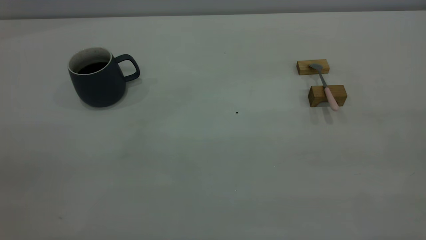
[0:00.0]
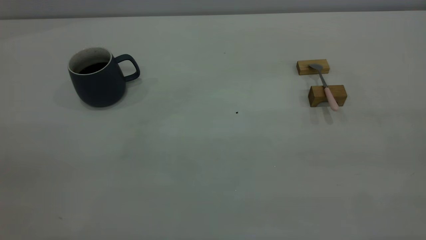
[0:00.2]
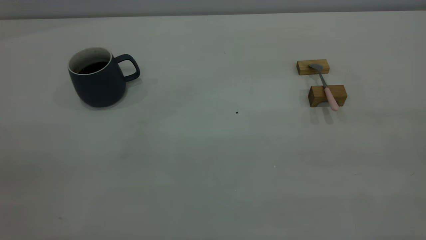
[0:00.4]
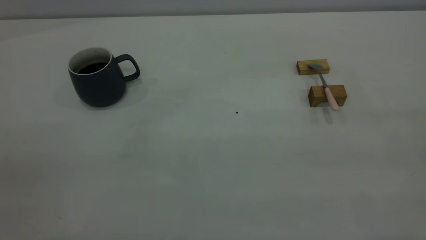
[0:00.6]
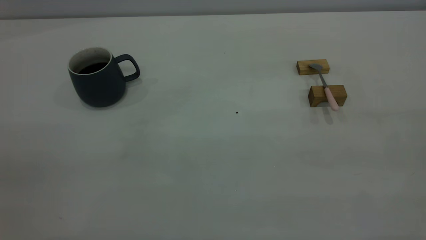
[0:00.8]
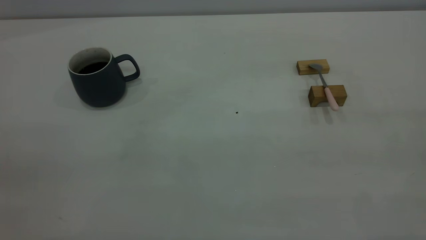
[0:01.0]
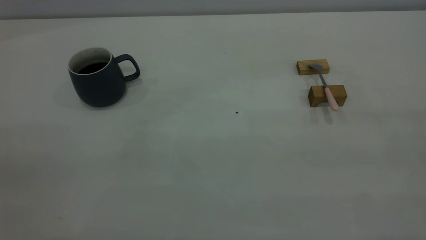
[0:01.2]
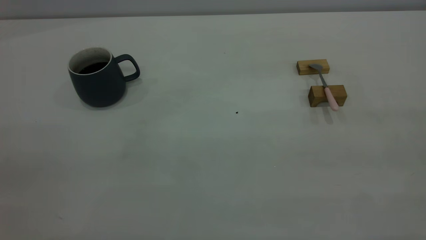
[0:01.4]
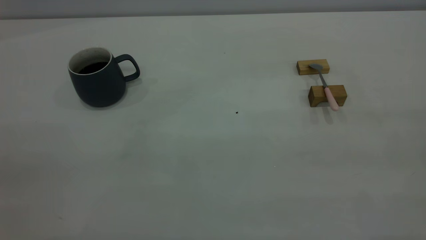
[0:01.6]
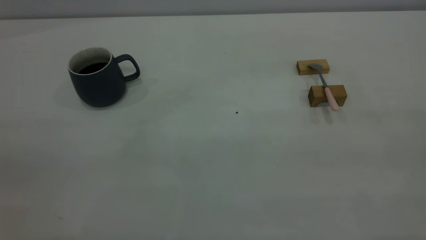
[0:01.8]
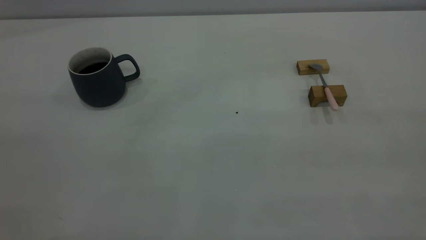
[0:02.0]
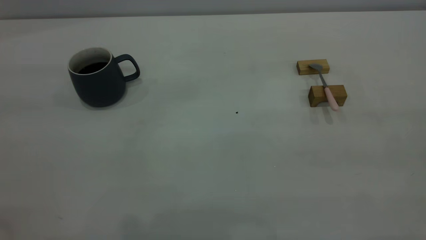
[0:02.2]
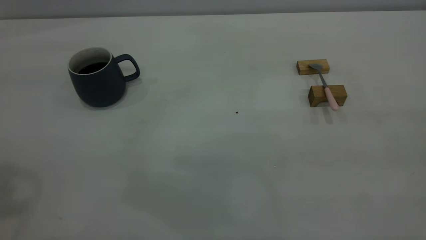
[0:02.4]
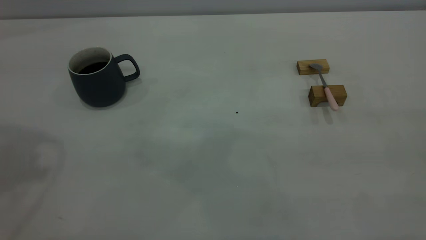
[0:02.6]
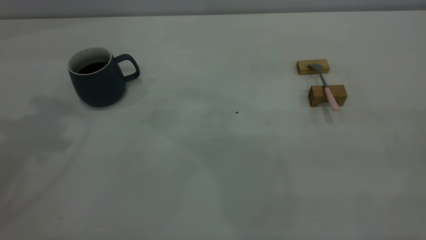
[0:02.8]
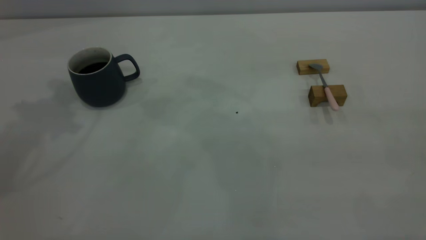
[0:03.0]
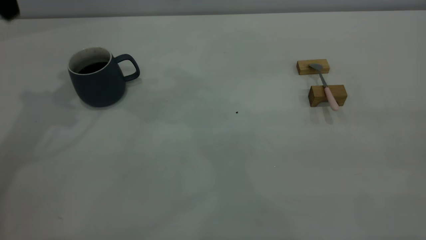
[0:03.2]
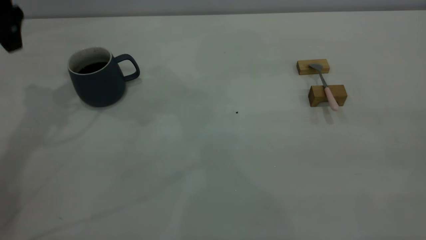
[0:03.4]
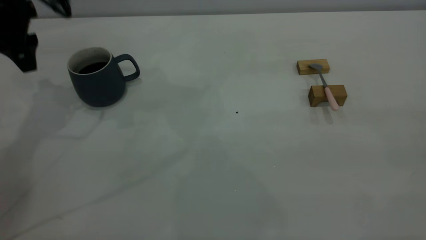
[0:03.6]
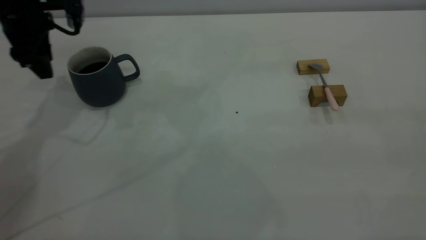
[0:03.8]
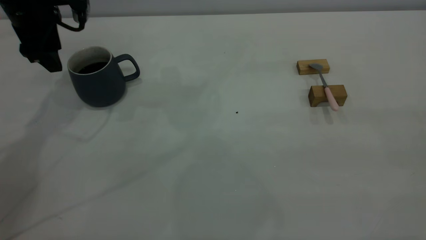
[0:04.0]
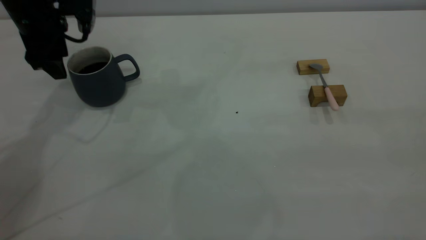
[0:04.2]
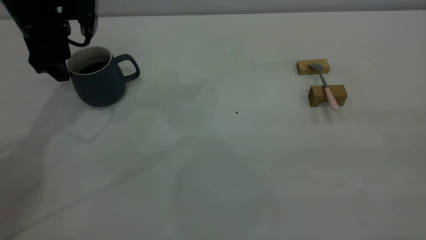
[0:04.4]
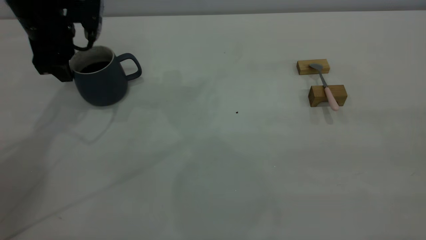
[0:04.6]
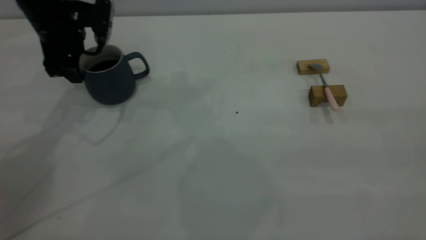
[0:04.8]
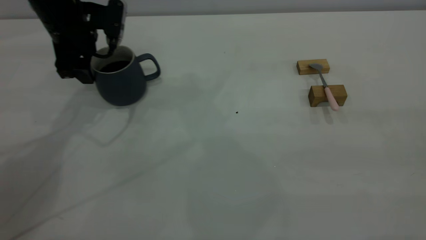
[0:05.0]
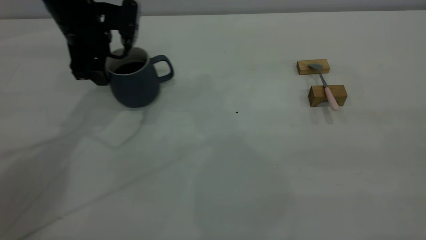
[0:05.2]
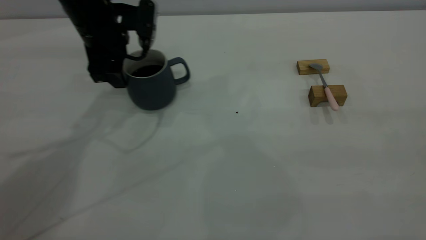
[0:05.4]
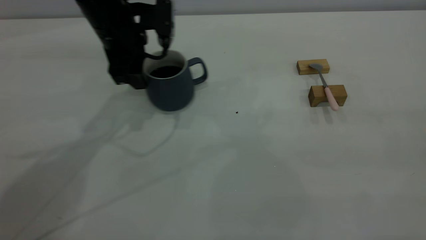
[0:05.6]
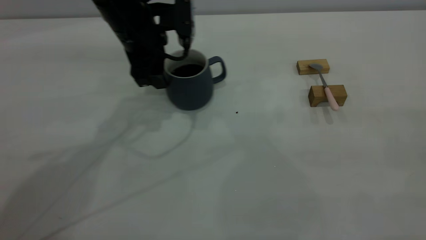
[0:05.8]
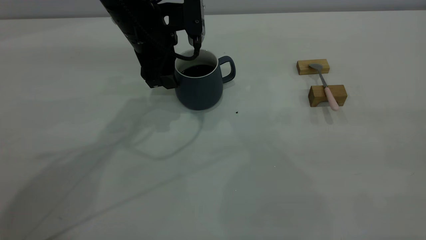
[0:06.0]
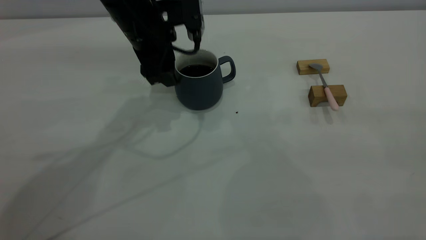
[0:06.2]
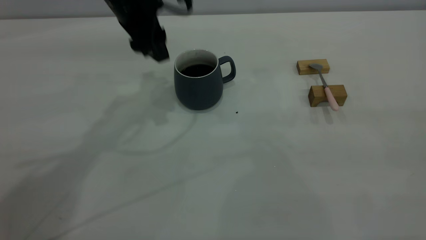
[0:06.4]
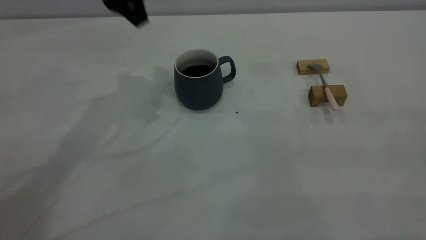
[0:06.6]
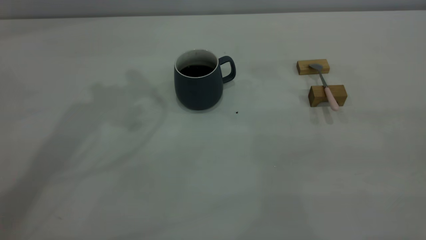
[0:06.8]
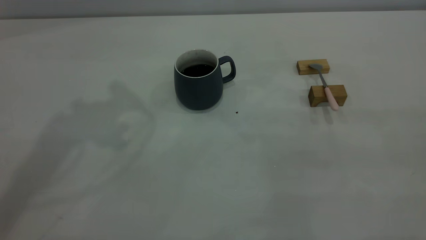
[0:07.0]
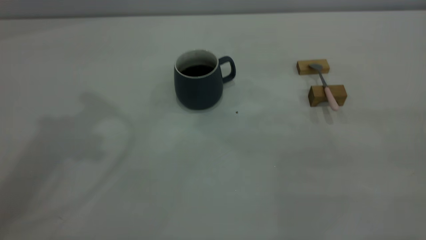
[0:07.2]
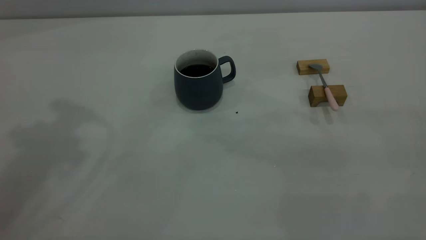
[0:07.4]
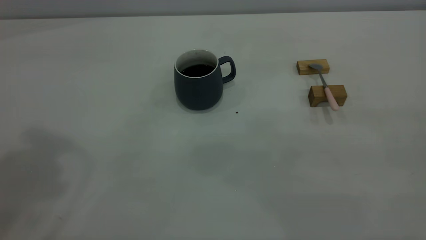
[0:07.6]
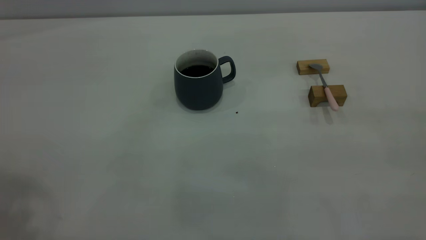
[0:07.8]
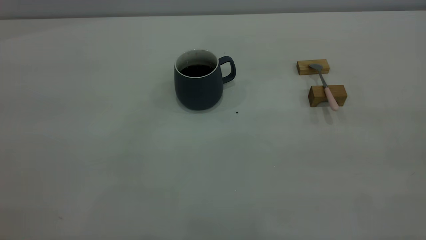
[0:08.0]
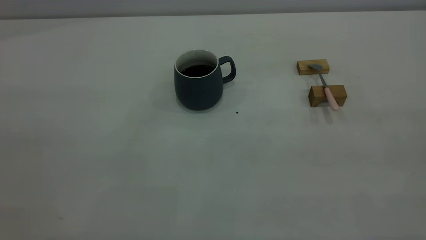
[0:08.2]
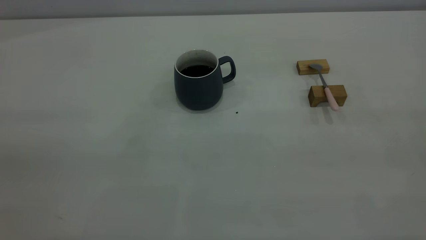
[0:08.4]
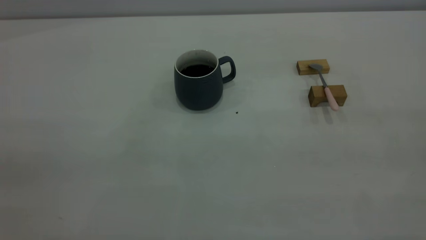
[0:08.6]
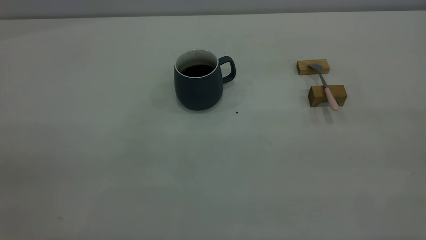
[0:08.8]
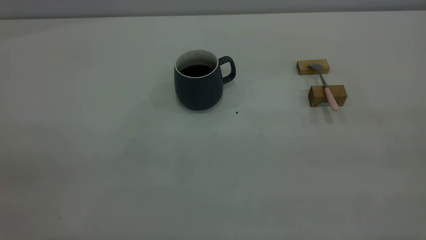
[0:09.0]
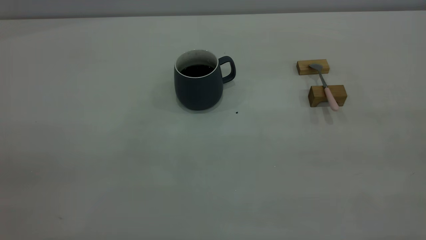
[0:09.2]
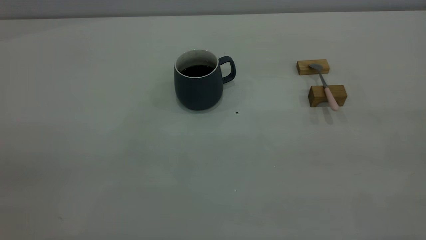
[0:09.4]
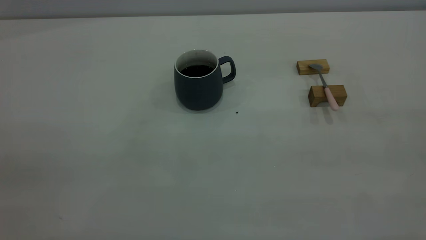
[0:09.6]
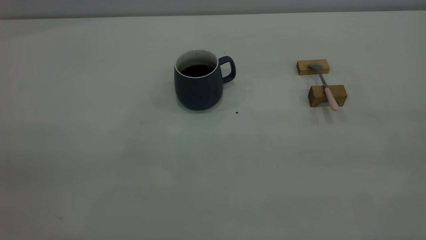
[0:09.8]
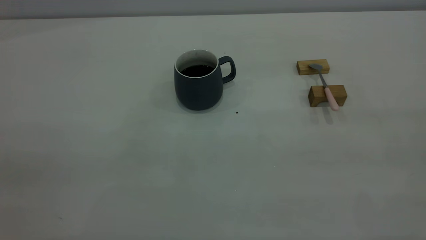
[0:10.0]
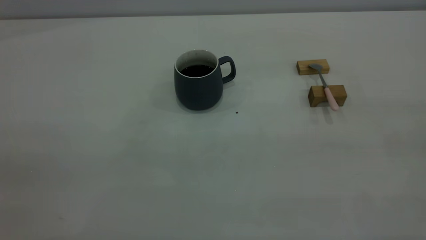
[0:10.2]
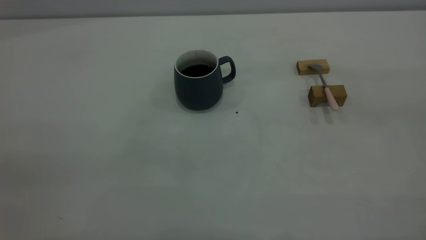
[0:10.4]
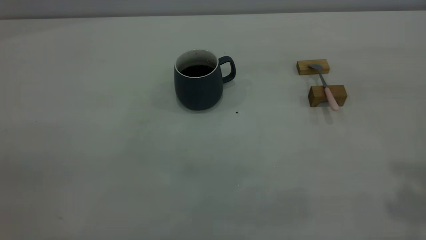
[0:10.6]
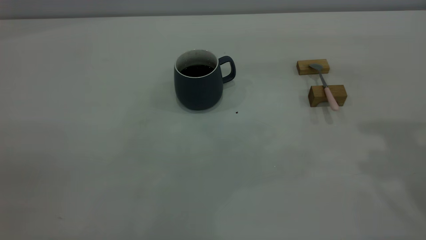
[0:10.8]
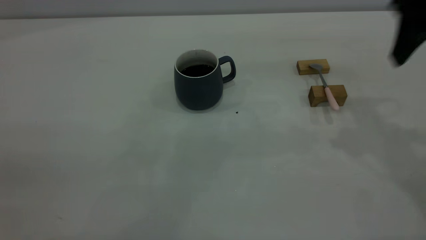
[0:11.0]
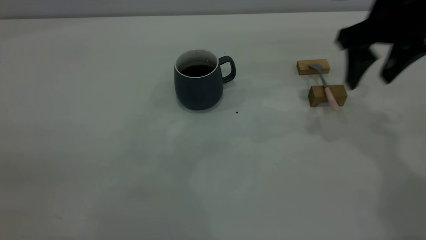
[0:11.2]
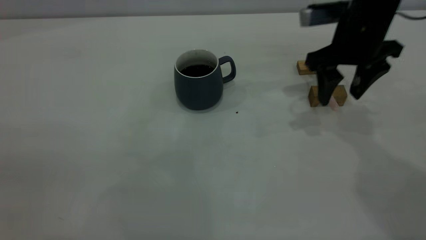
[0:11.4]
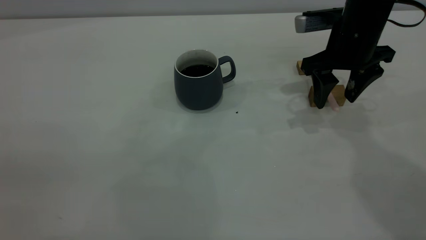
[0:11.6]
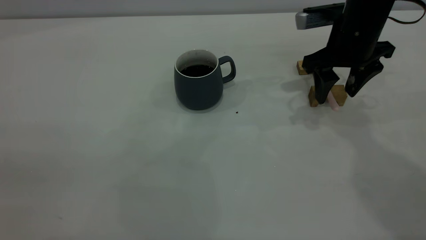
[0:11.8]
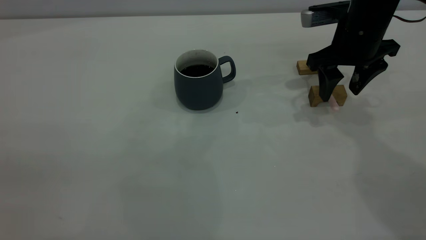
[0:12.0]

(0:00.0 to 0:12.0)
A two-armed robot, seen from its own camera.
Step, 0:00.0 - 0:06.2: Move the cup with coffee to the center of view.
0:00.0 - 0:01.6: Neither gripper changes place.
0:03.0 - 0:04.4: The left gripper travels downward and forward by approximately 20 cm, and opens up.
0:04.4 - 0:06.0: The left gripper is displaced to the right by some 15 cm.
0:06.0 - 0:07.6: The left gripper goes roughly 40 cm upward, backward and to the left.
0:10.4 - 0:12.0: The right gripper heads forward and downward, covering about 40 cm.

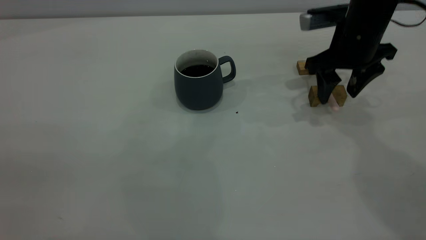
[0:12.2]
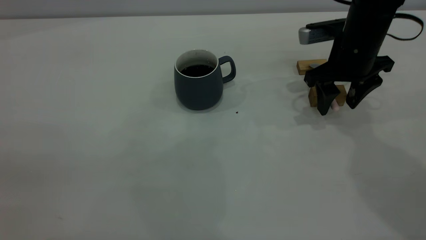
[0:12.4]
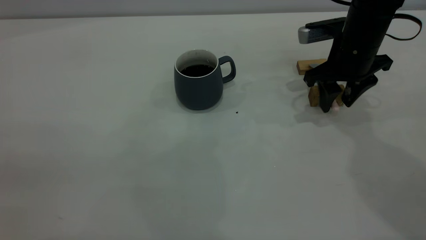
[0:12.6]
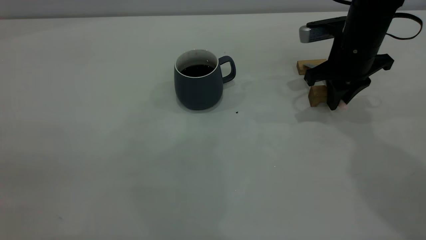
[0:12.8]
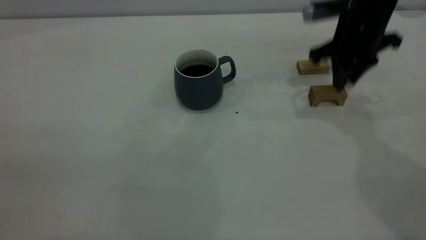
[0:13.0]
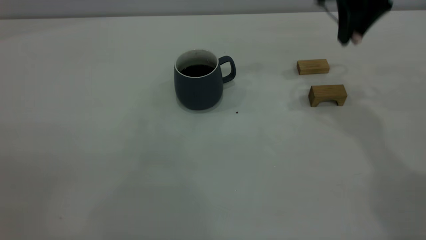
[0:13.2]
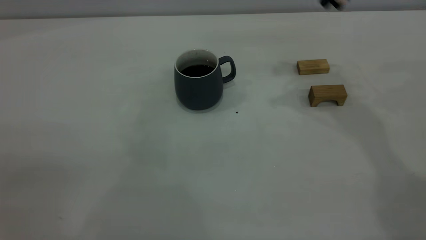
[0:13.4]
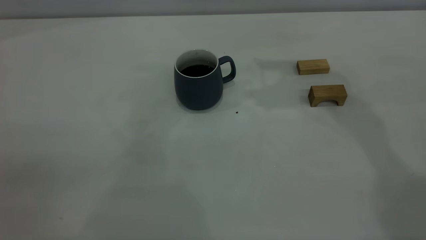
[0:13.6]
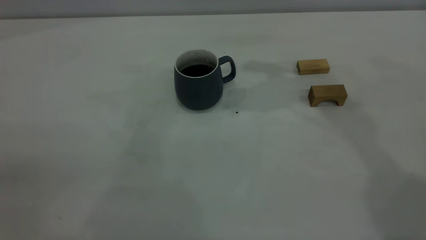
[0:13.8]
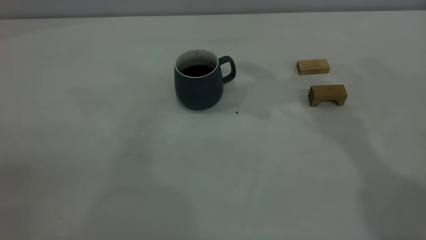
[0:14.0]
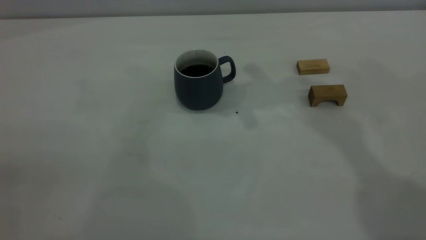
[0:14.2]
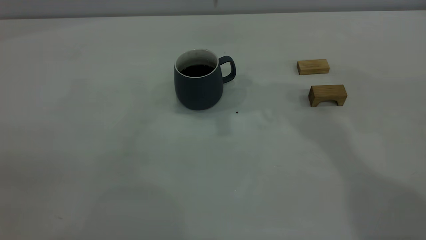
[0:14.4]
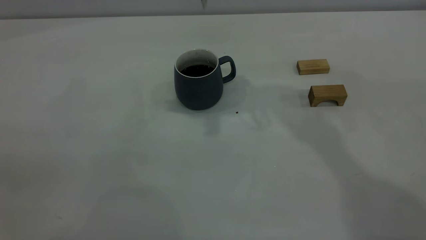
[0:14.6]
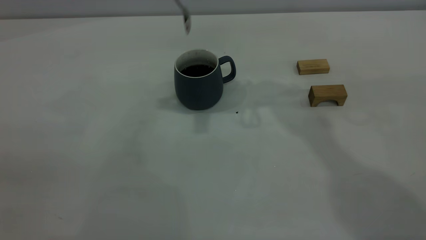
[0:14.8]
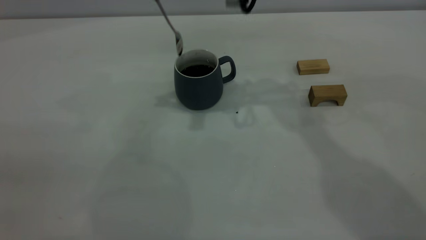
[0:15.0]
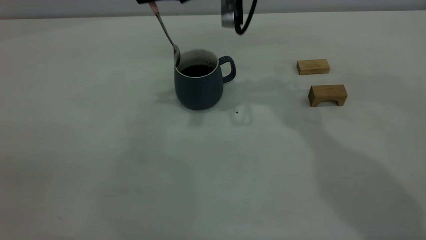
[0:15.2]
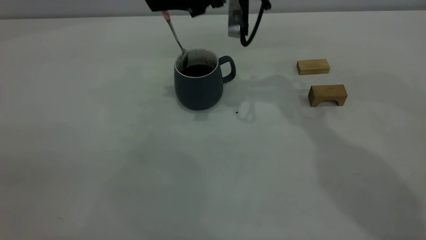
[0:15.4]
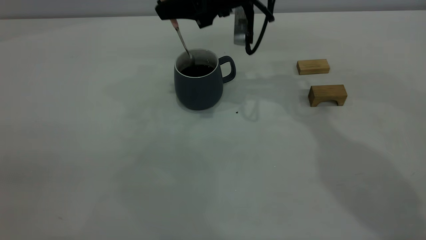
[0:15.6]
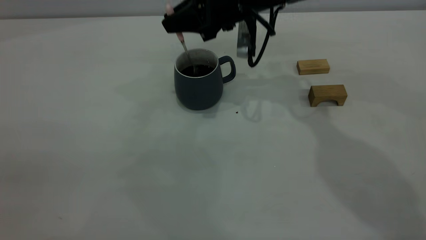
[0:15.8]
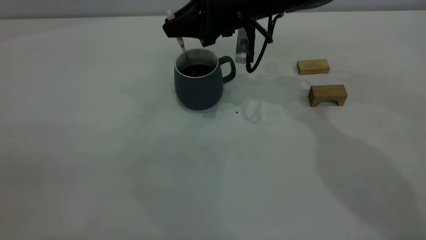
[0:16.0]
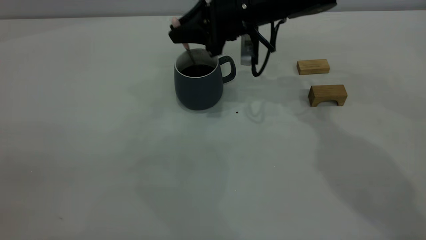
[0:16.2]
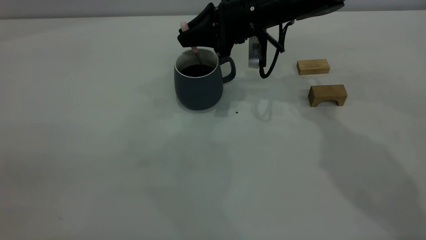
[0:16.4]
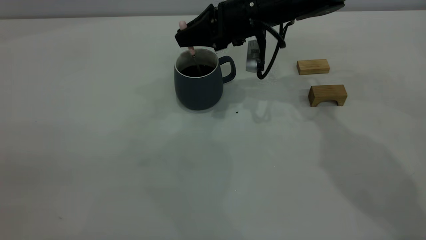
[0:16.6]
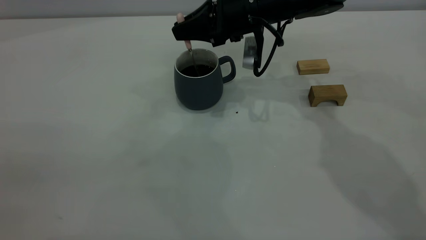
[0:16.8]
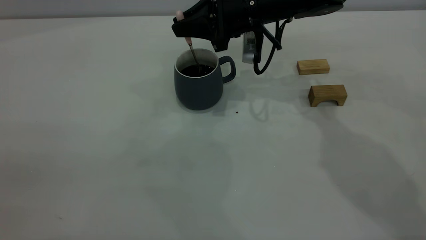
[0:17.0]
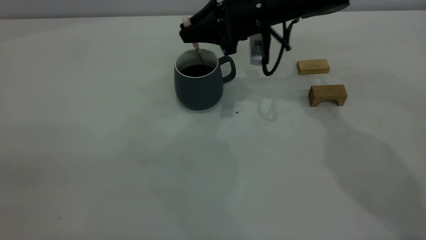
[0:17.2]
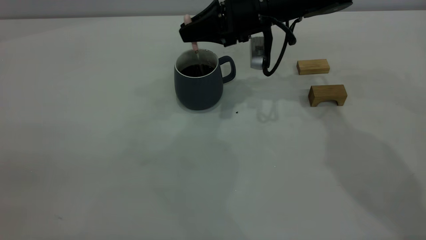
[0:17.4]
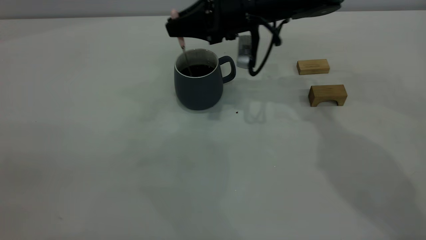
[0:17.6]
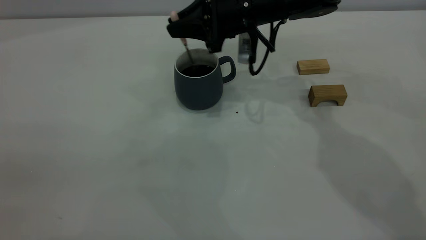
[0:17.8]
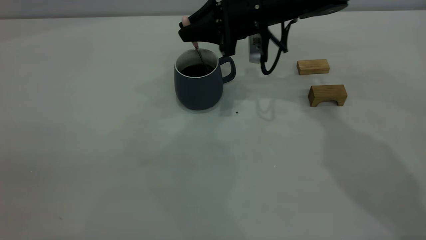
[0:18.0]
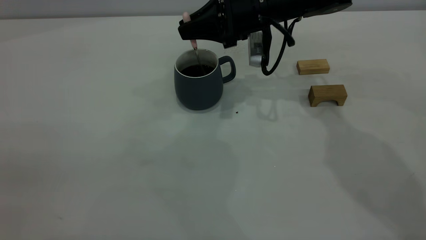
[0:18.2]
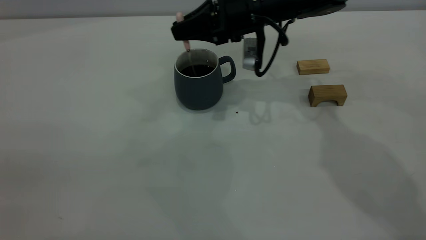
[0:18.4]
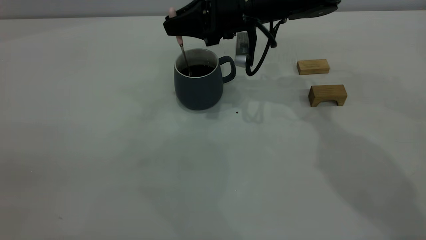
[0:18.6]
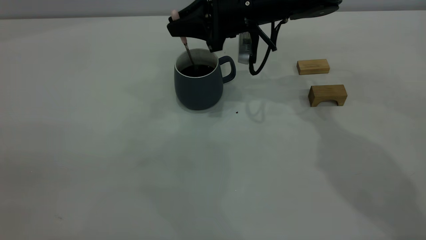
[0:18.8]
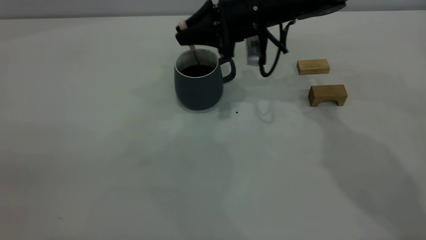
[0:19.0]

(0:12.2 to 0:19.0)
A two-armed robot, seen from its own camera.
0:12.2 - 0:13.6: The right gripper shifts some 20 cm upward, and closes its fingers.
0:15.0 - 0:16.2: The right gripper is displaced downward by some 10 cm.
0:16.2 - 0:19.0: The grippers stay close to where they were, moving slightly.
